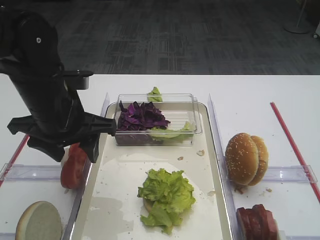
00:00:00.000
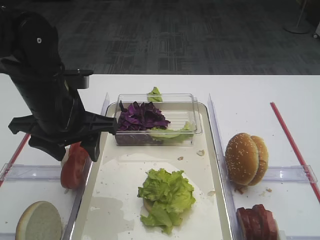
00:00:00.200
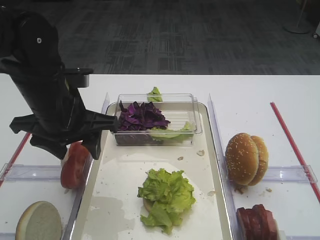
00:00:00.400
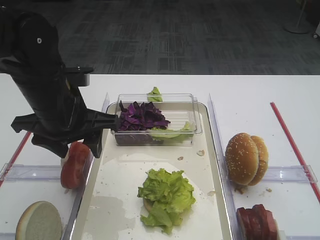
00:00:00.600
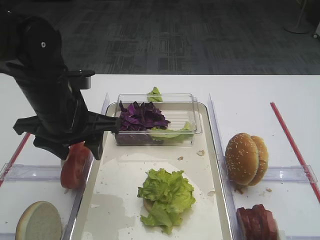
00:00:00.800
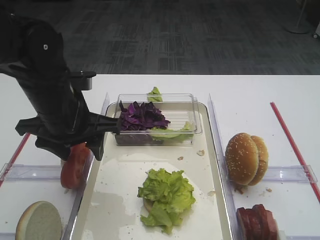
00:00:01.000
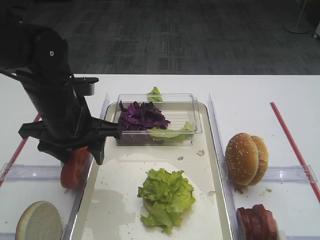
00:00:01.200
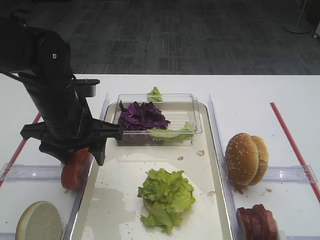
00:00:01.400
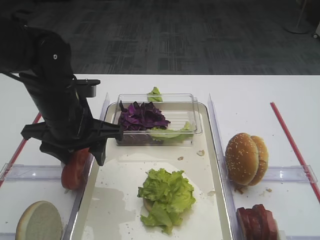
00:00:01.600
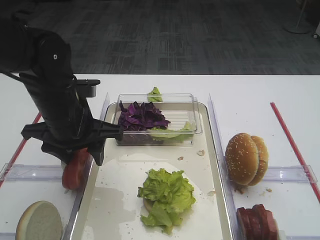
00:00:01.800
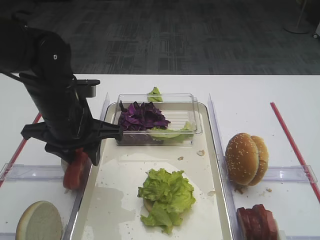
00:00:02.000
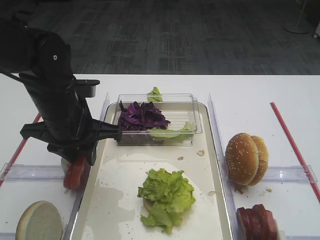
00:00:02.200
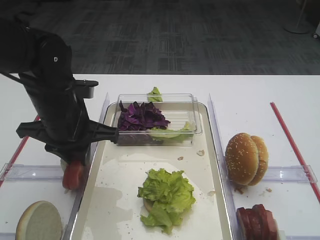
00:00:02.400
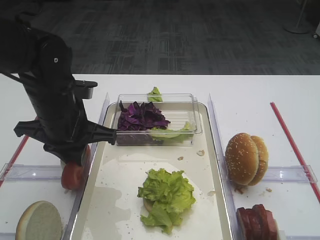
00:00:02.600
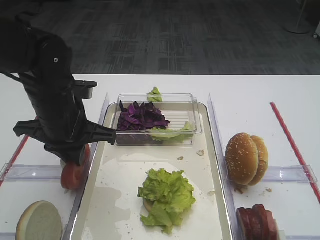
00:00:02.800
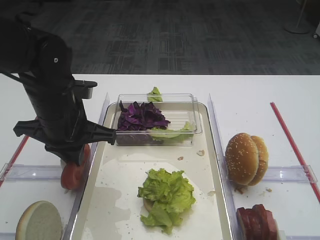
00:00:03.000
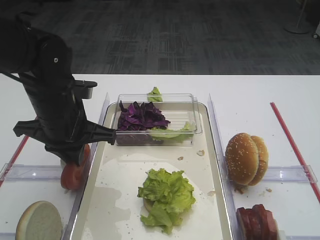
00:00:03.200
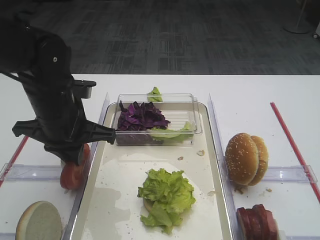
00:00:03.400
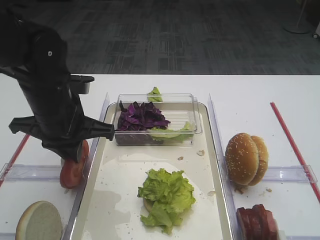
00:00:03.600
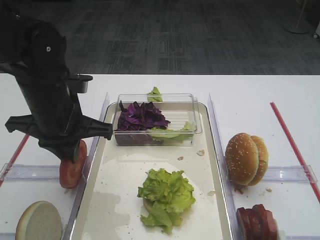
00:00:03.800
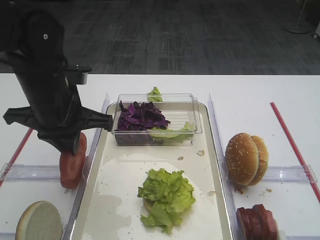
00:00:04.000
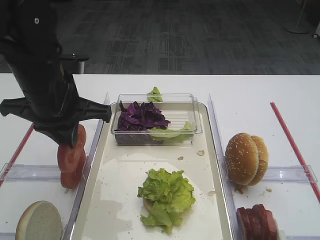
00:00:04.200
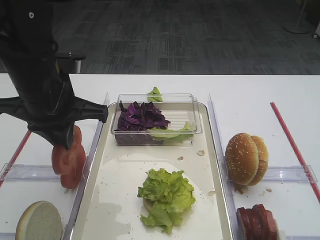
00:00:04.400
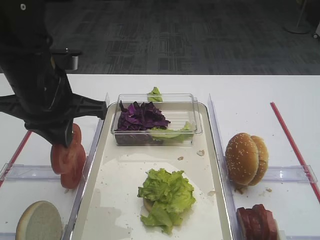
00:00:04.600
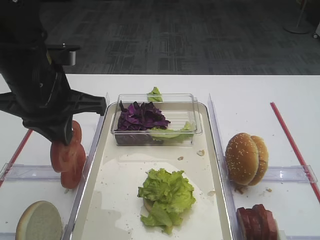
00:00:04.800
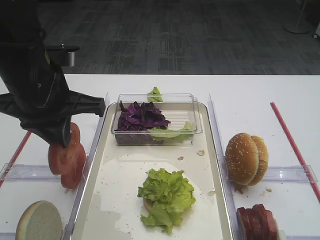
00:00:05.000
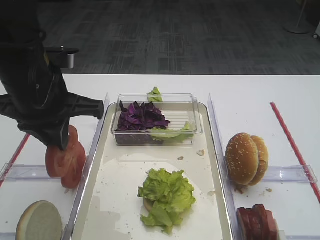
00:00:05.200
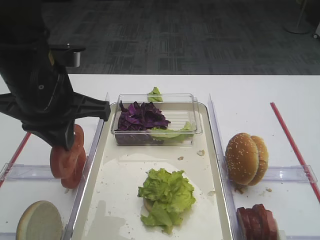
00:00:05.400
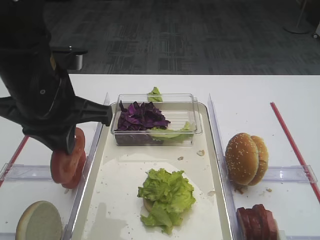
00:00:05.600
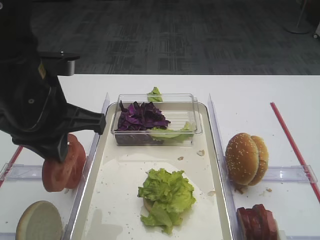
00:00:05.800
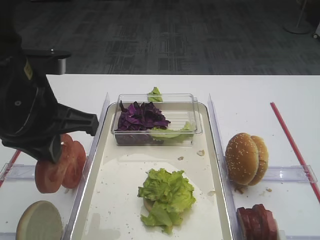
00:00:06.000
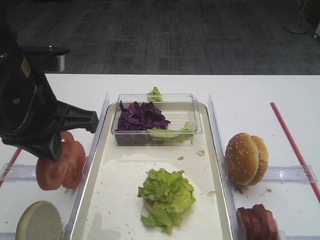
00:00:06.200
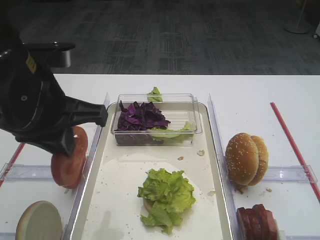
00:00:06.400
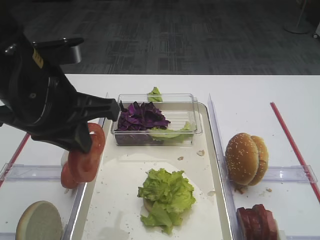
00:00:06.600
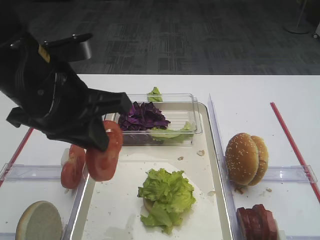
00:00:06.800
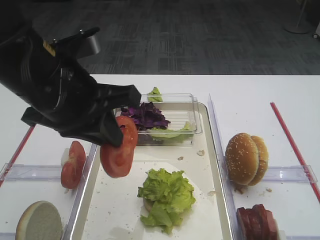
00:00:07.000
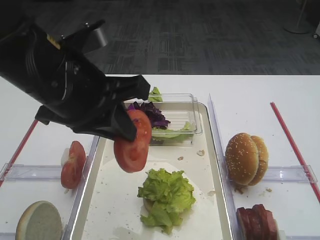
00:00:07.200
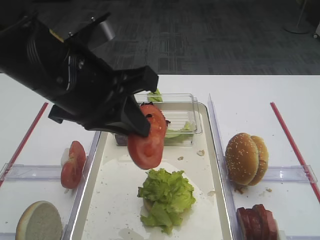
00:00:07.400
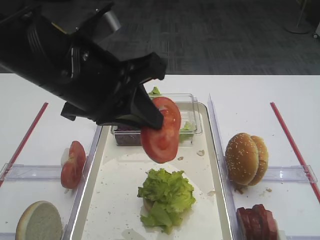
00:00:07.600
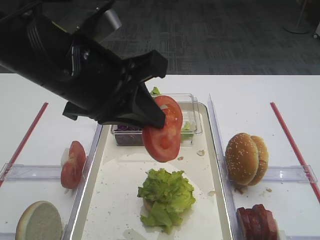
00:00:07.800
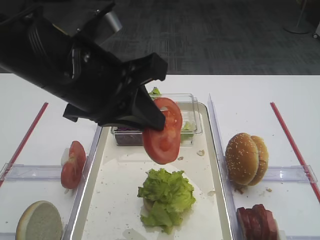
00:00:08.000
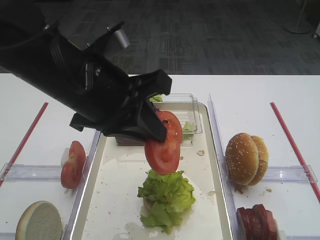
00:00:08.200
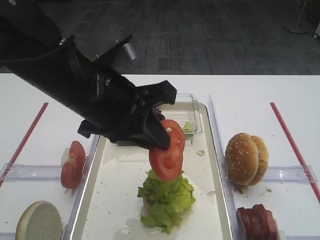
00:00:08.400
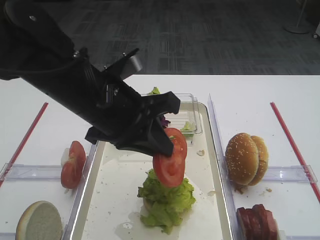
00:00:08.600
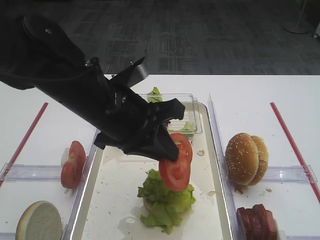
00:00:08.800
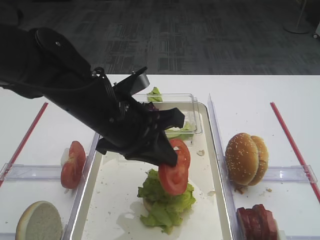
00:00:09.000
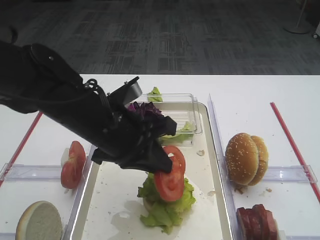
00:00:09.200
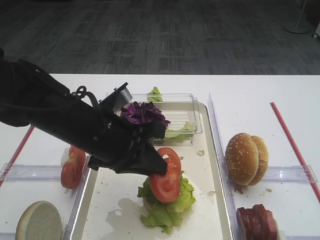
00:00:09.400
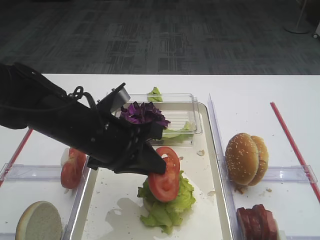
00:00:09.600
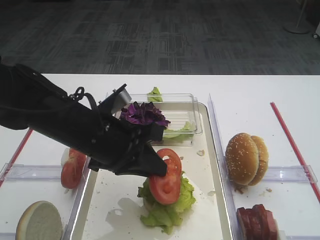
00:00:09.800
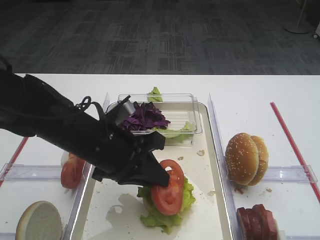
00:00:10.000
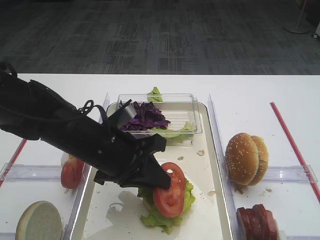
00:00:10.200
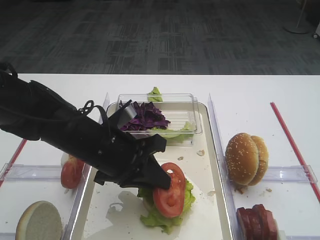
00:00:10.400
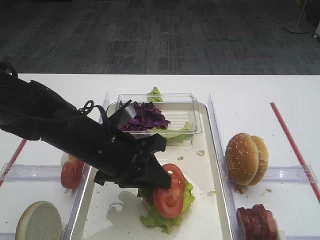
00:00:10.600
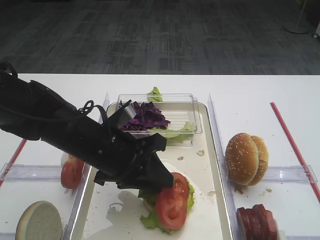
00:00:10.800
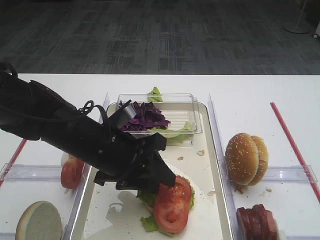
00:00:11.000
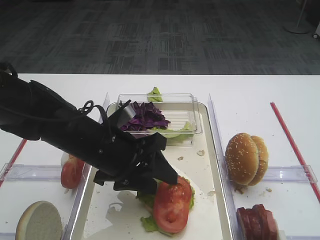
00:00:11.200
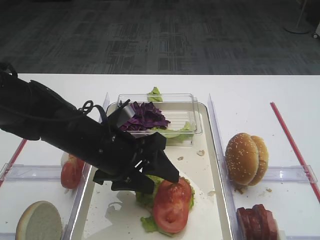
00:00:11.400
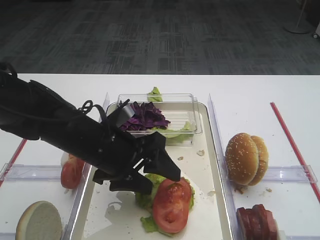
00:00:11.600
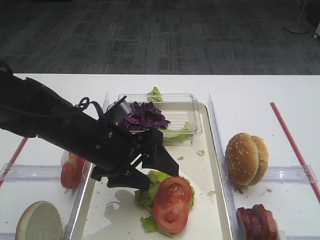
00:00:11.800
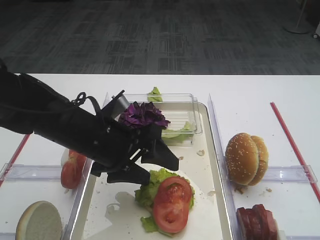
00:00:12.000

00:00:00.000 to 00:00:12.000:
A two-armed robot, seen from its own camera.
Step, 00:00:00.000 to 00:00:04.800: Pick up the tomato slice with the left gripper.
00:00:00.000 to 00:00:01.600: The grippers move only a little.
00:00:01.600 to 00:00:03.000: The left gripper closes up.
00:00:03.000 to 00:00:04.400: The left gripper goes approximately 5 cm upward.
00:00:04.400 to 00:00:06.000: The left gripper travels backward by some 5 cm.
00:00:06.000 to 00:00:07.600: The left gripper goes approximately 5 cm to the right.
00:00:07.600 to 00:00:09.000: The left gripper is displaced downward by roughly 10 cm.
00:00:09.000 to 00:00:10.400: The left gripper shifts some 5 cm downward.
00:00:10.400 to 00:00:12.000: The left gripper opens.

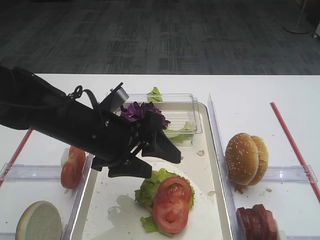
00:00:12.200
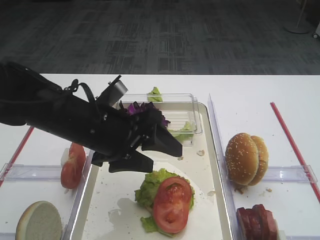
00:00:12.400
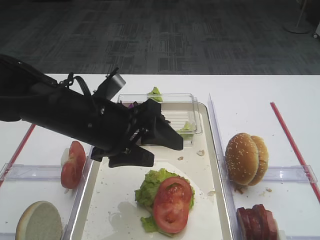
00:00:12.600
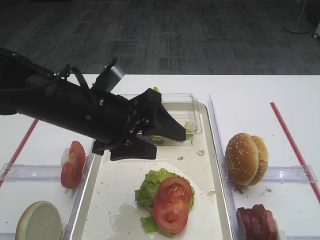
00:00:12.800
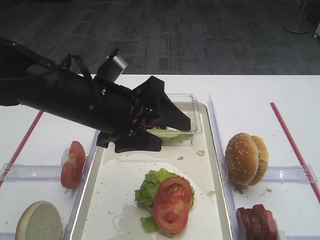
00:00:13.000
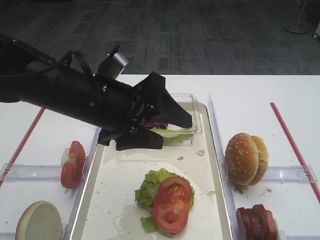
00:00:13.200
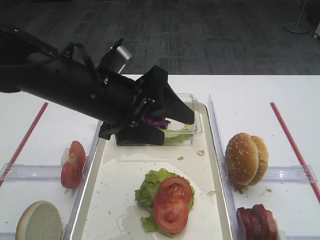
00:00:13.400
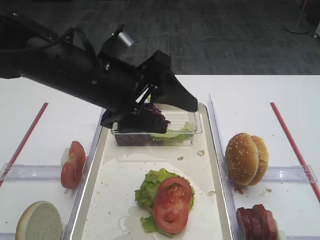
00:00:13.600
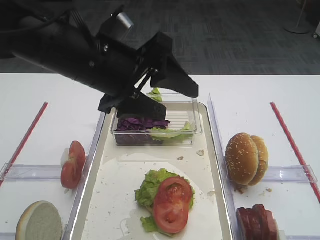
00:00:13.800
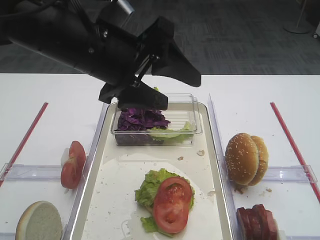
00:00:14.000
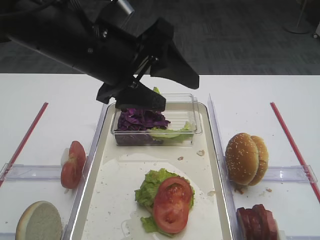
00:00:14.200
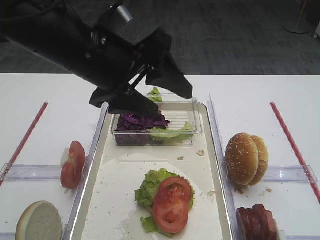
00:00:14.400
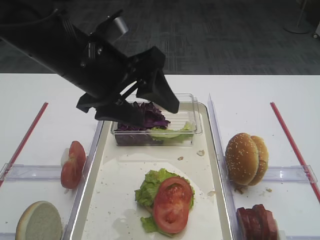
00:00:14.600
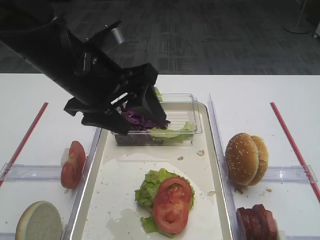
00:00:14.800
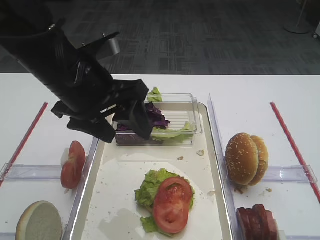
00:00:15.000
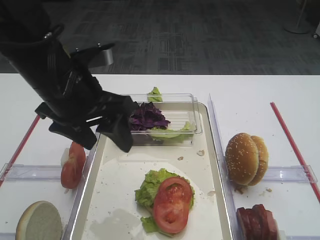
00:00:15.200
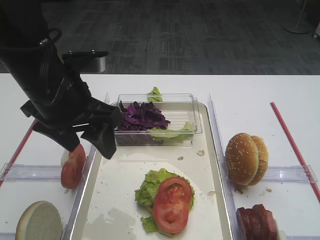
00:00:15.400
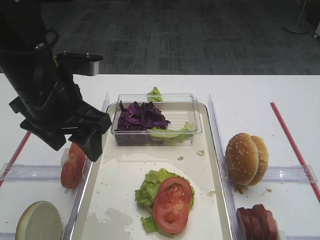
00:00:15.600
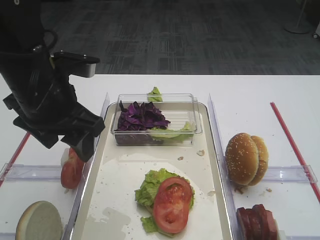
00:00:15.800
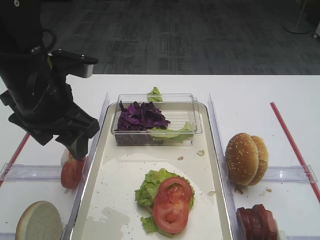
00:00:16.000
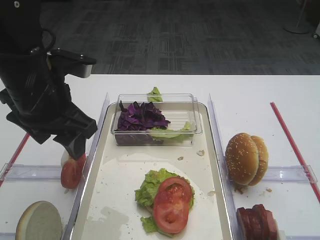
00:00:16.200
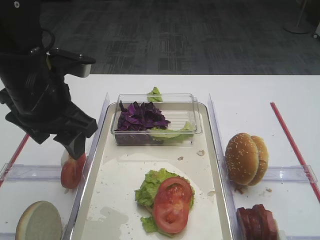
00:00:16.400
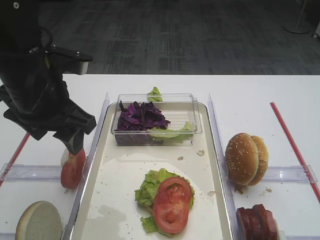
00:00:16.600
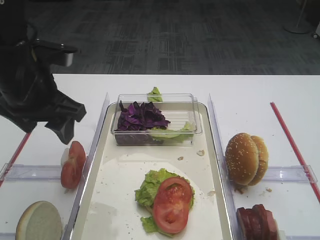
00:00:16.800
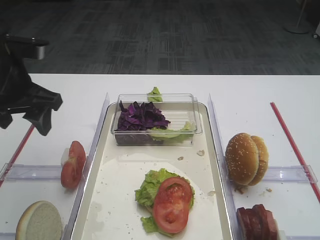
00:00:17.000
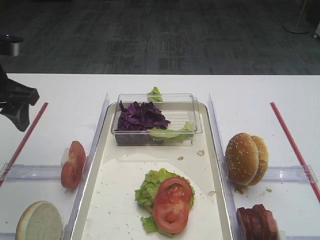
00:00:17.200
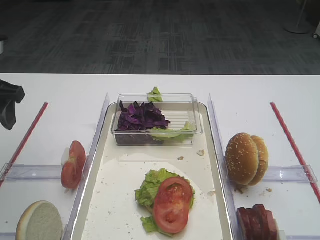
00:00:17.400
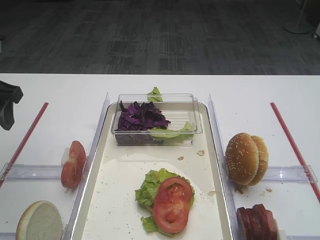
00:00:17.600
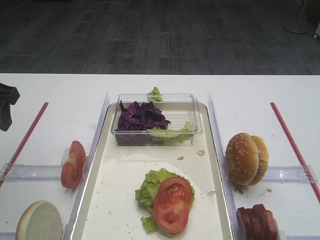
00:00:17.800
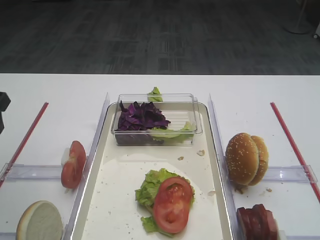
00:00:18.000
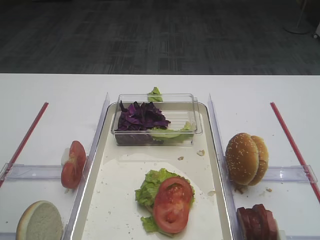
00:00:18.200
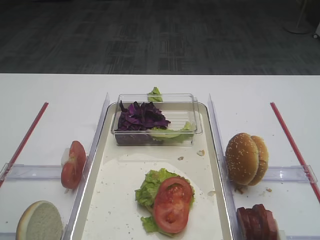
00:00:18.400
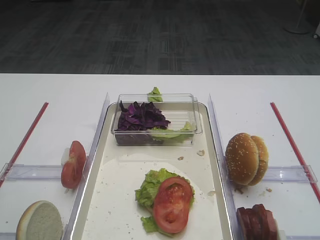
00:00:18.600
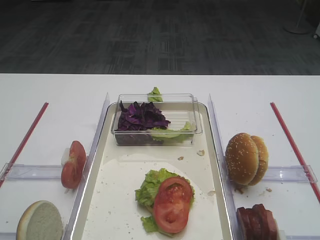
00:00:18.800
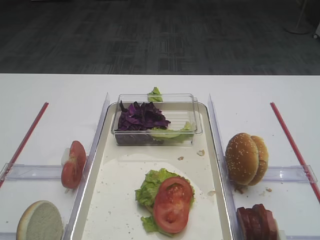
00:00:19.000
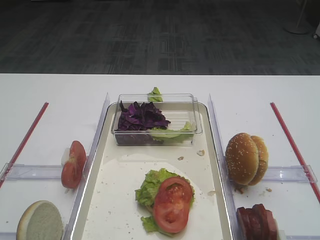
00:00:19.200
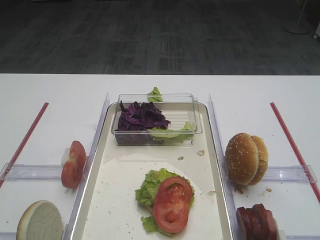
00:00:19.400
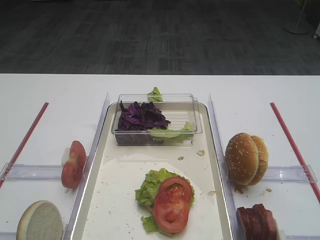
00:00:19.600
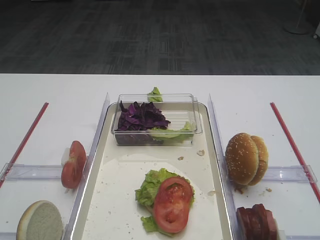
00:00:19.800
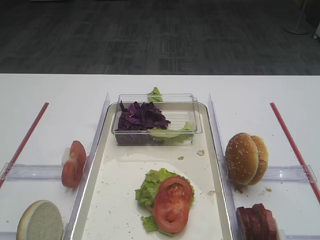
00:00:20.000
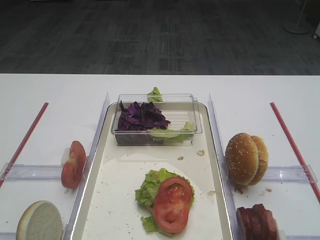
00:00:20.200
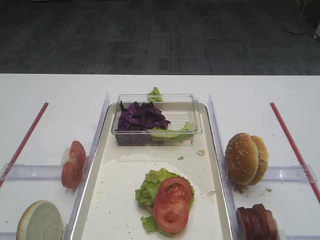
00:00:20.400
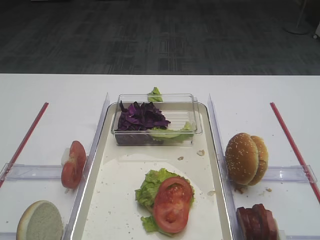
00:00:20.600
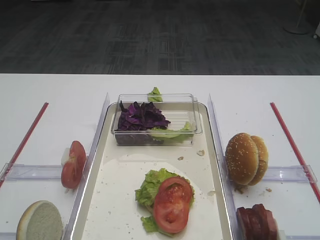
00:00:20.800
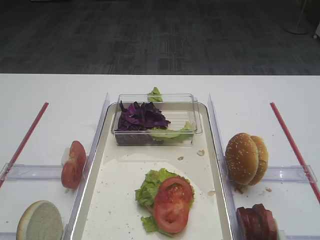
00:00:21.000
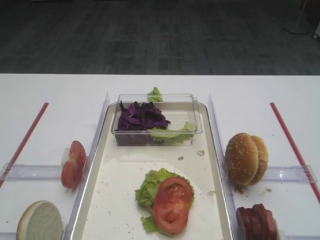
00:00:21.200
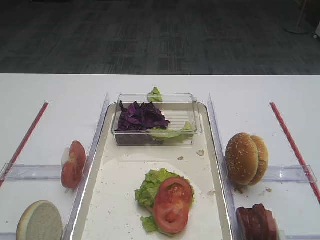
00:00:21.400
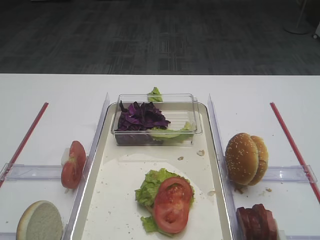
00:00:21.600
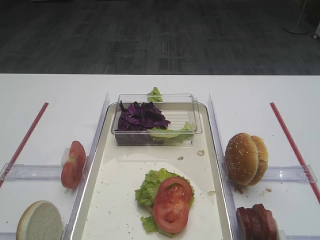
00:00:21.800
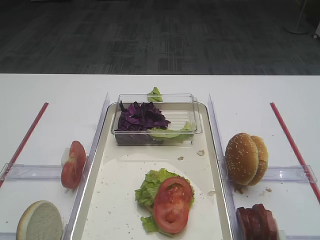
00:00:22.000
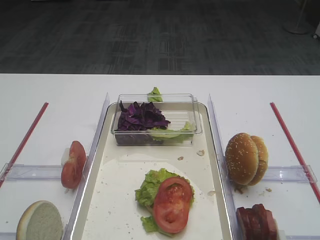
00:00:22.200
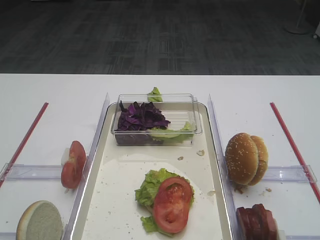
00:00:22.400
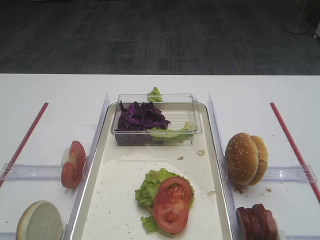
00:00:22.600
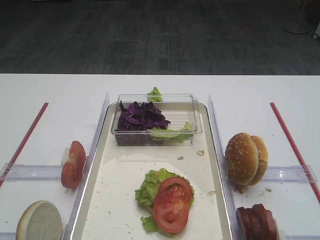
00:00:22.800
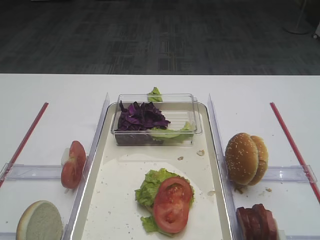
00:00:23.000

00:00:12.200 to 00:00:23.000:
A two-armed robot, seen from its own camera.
00:00:12.200 to 00:00:13.800: The left gripper goes some 10 cm upward.
00:00:15.200 to 00:00:16.800: The left gripper travels to the left by about 5 cm.
00:00:16.800 to 00:00:18.400: The left gripper moves backward and to the left, roughly 15 cm.
00:00:20.000 to 00:00:23.000: Both grippers stay put.
